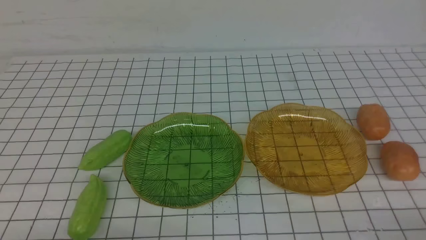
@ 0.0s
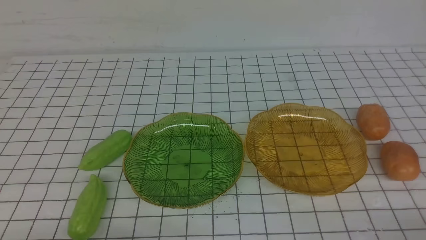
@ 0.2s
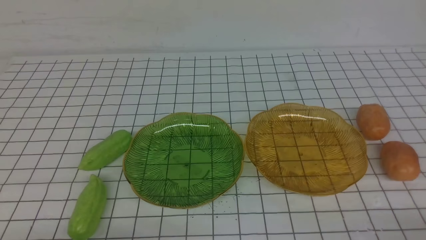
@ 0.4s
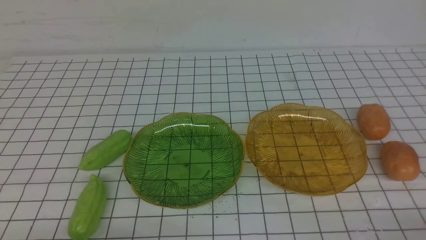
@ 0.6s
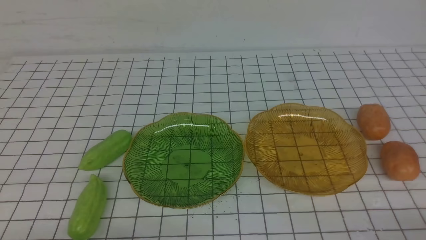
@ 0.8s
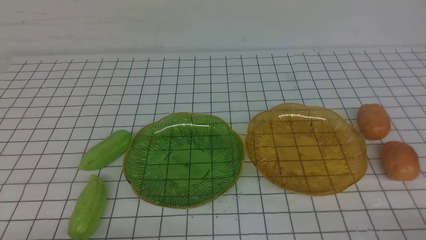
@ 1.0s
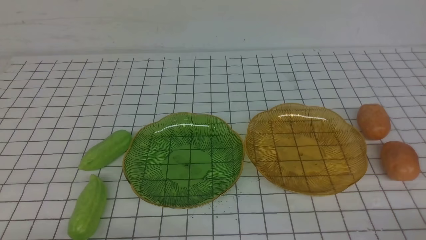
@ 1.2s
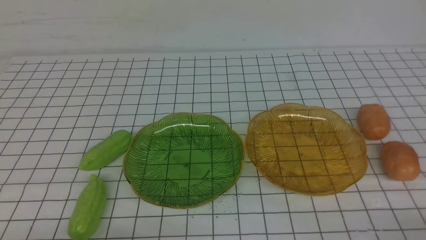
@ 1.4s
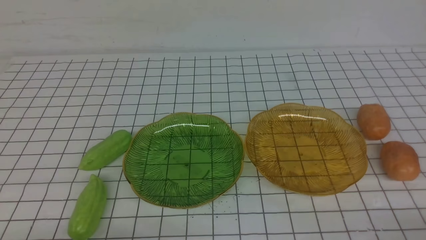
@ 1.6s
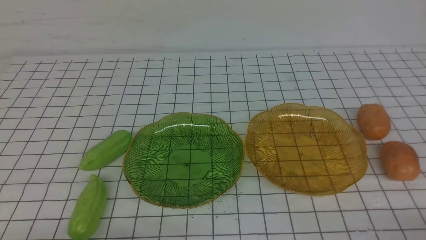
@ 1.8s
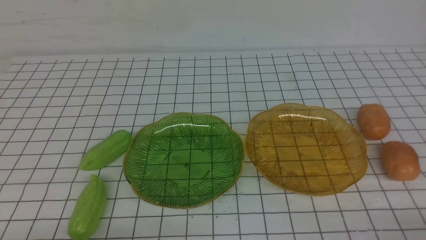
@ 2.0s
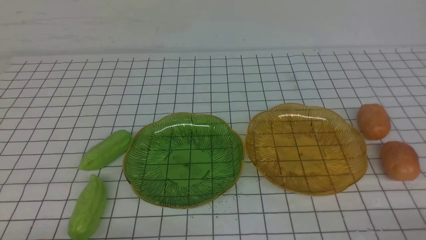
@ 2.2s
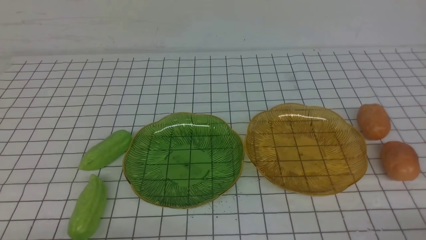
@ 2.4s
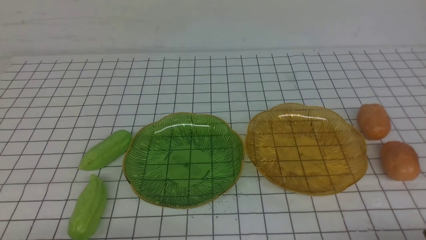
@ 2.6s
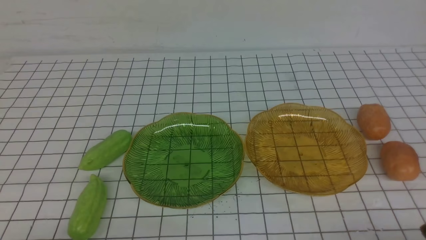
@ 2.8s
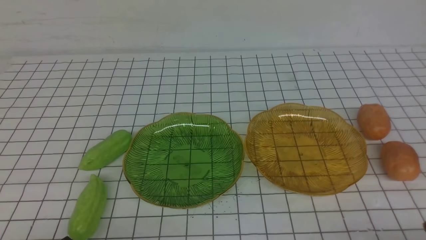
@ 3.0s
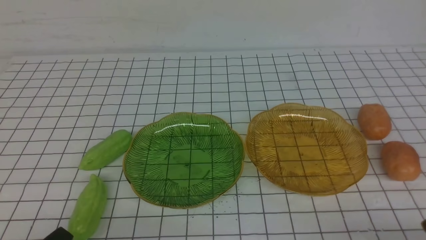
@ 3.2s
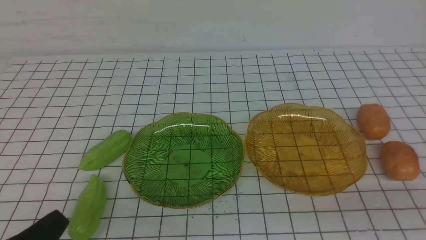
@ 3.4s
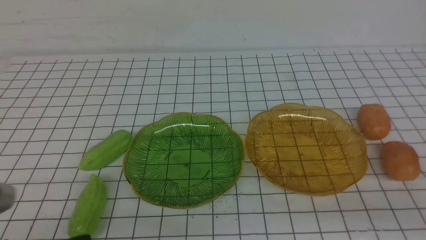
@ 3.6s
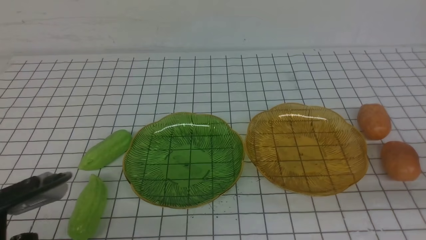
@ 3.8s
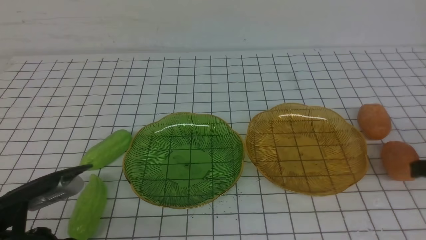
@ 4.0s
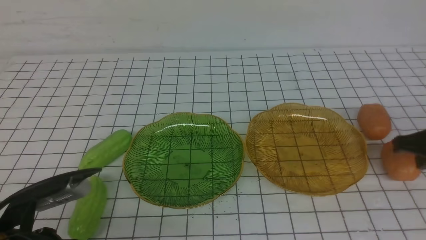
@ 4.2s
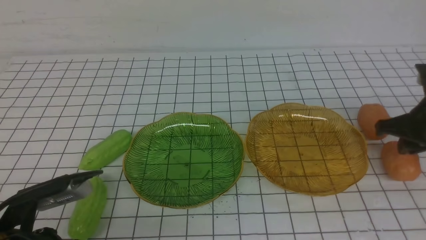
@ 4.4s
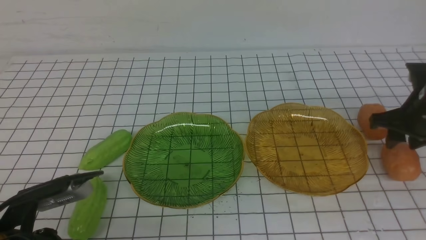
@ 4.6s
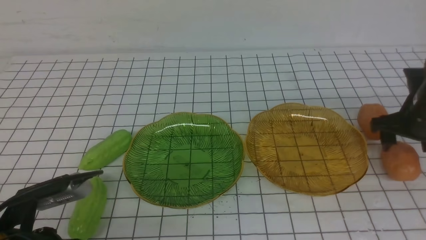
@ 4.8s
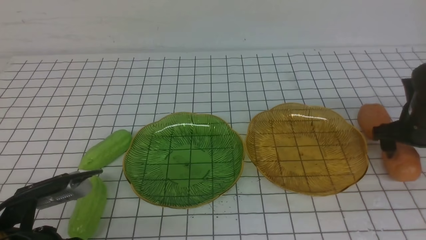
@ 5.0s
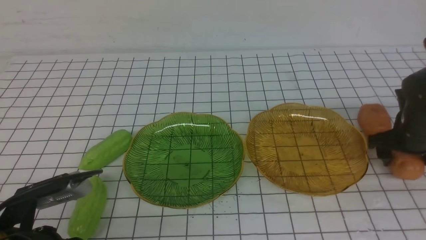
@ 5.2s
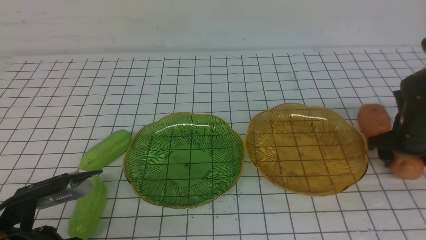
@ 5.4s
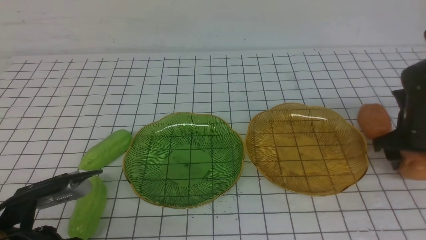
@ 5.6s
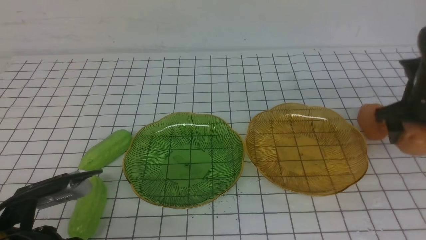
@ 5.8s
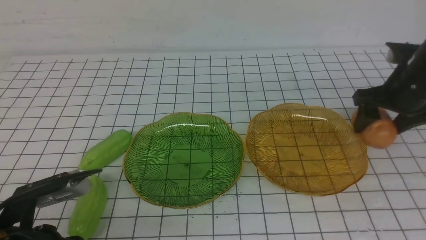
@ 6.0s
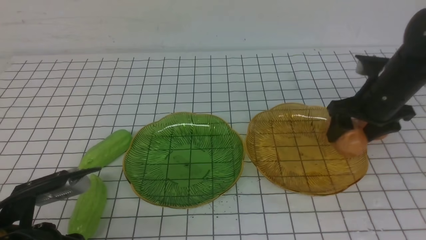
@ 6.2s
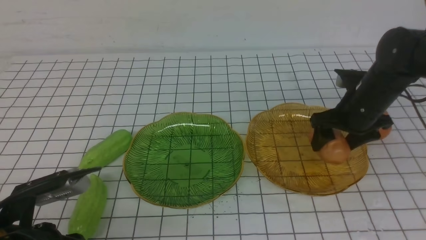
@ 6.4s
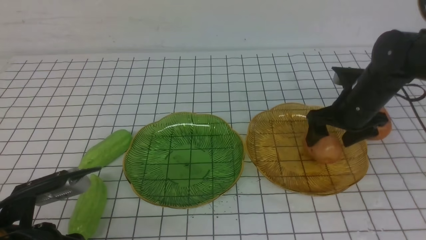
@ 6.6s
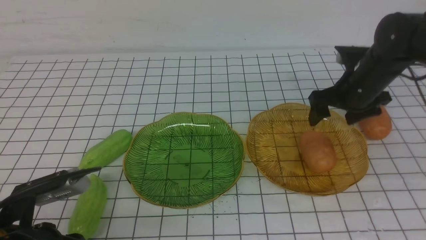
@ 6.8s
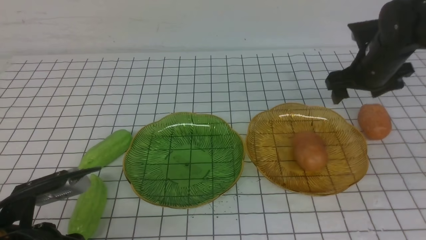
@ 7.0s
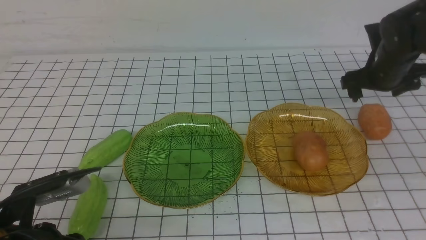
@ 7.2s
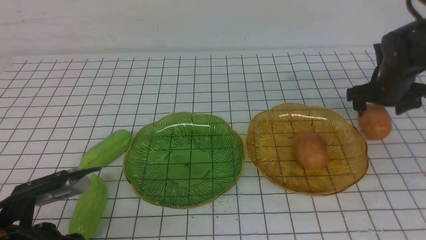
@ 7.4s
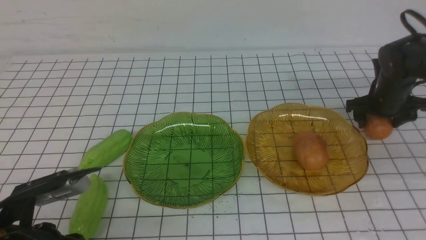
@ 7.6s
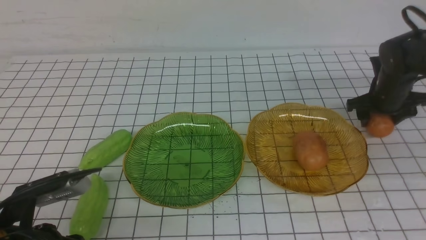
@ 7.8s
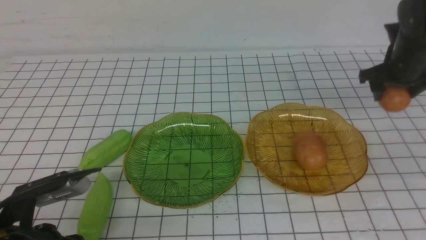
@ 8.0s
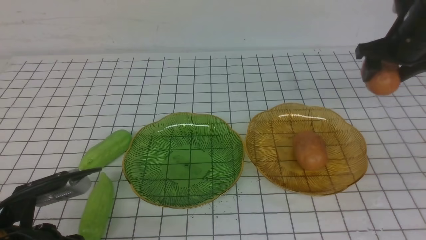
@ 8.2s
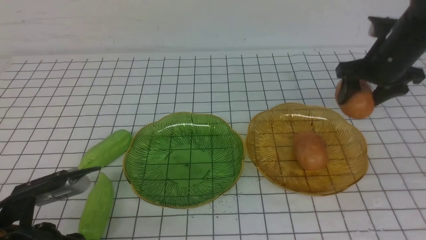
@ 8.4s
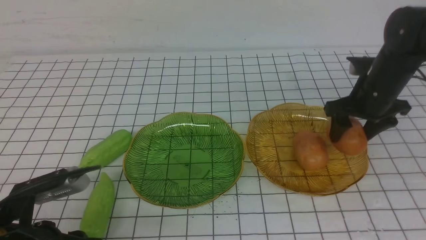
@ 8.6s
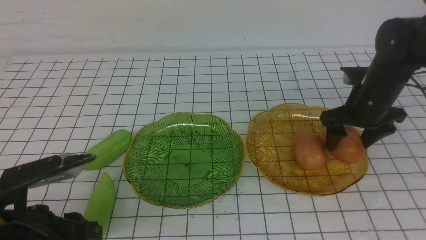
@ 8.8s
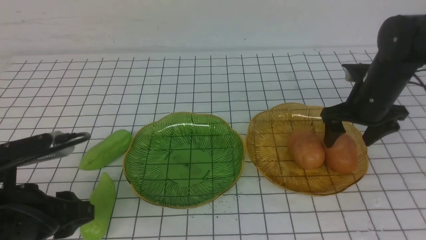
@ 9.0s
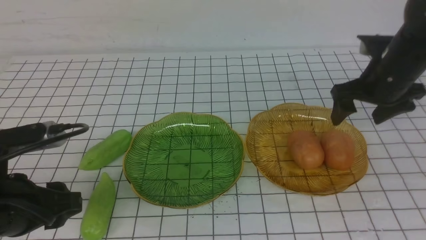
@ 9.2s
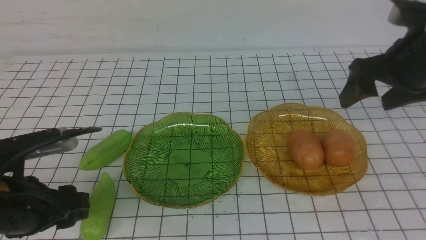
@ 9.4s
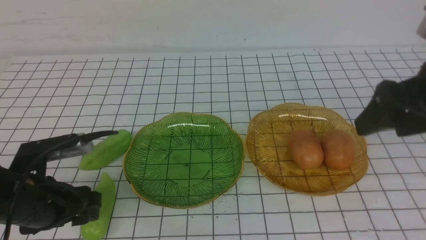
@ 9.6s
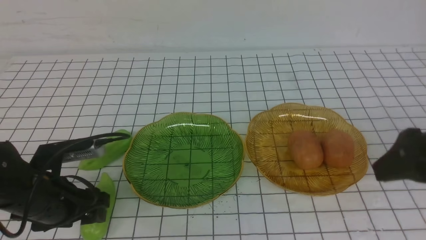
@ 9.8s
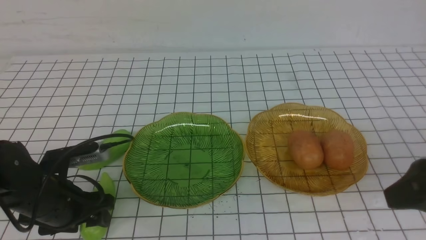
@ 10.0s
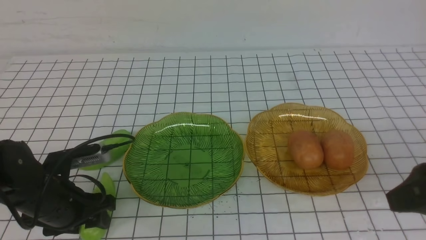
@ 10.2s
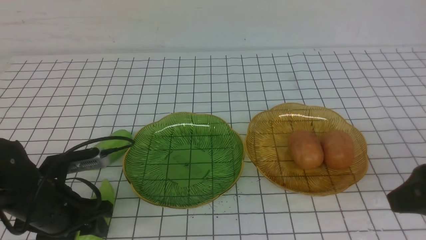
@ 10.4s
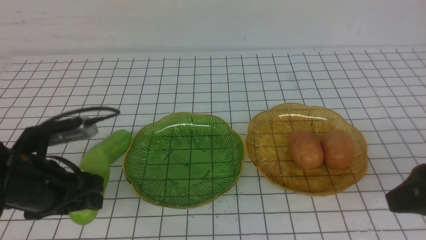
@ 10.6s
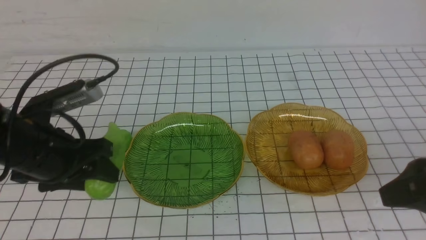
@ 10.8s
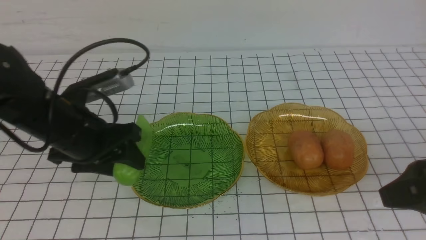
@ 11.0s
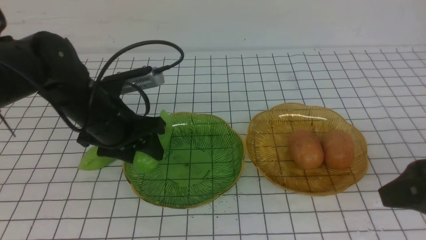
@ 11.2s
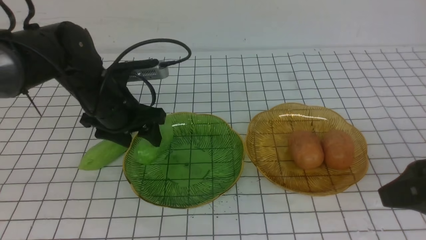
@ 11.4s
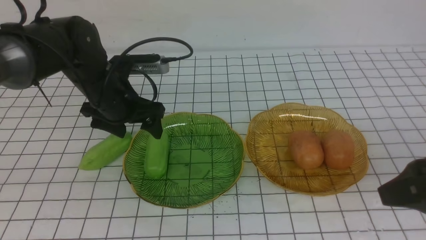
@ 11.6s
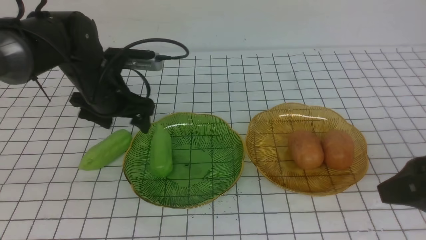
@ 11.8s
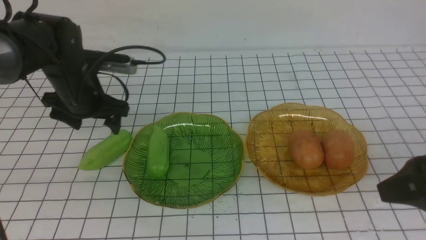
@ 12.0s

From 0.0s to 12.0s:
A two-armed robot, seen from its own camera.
Step, from 0.0s to 9.0s: Grab a potato with your right arm and put it on the right plate.
From 0.0s to 1.6s: Both grippers stay put.
From 3.0s to 4.4s: The right gripper moves forward, approximately 25 cm. The left gripper goes about 10 cm forward.
From 4.4s to 6.0s: The right gripper heads forward, covering approximately 5 cm, reaches about 10 cm downward, then returns, and opens up.
From 6.0s to 7.6s: The right gripper heads forward and downward, covering some 10 cm.
From 7.6s to 9.0s: The right gripper moves backward, upward and to the left, approximately 10 cm.
From 9.0s to 10.4s: The left gripper travels forward by some 5 cm, while the right gripper moves backward, some 20 cm.
From 10.4s to 12.0s: The left gripper moves forward, approximately 15 cm, and opens its fingers.

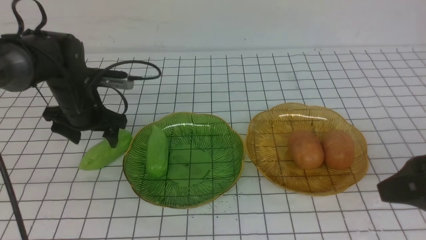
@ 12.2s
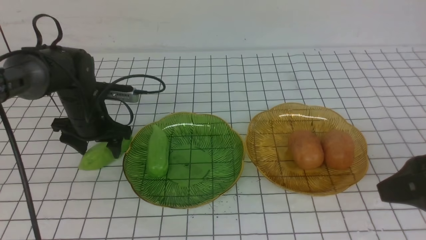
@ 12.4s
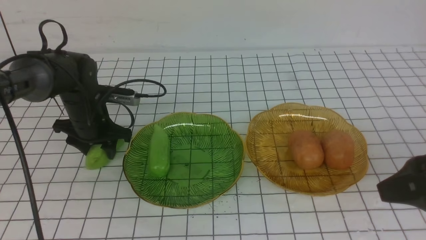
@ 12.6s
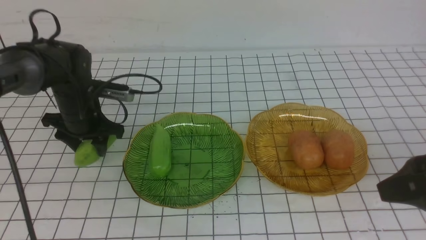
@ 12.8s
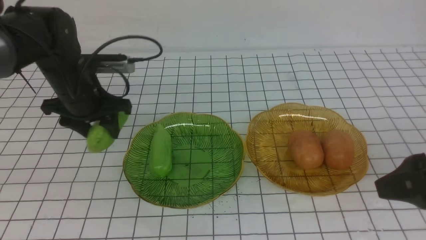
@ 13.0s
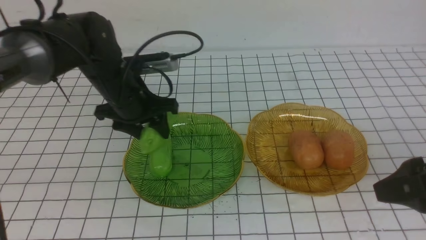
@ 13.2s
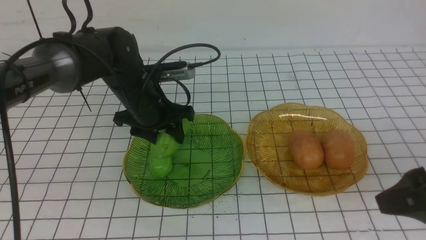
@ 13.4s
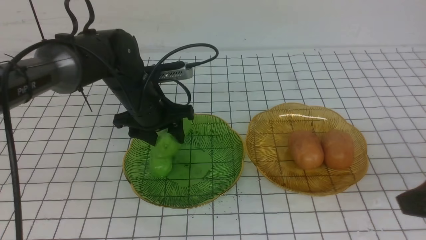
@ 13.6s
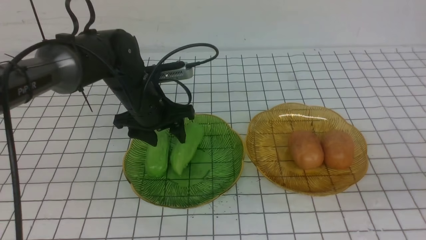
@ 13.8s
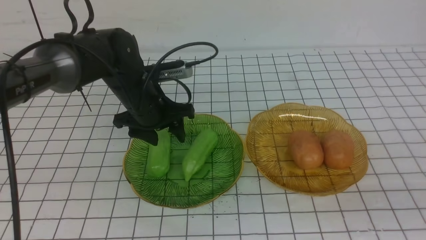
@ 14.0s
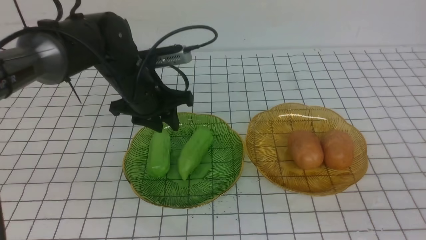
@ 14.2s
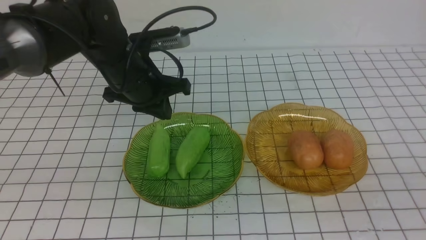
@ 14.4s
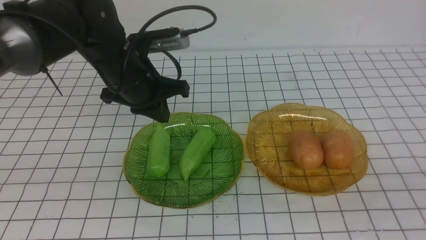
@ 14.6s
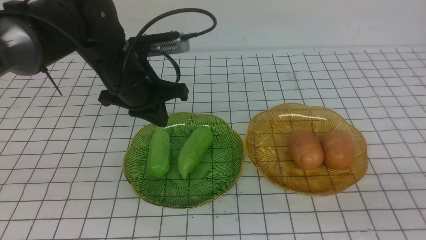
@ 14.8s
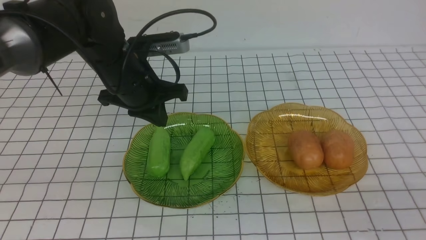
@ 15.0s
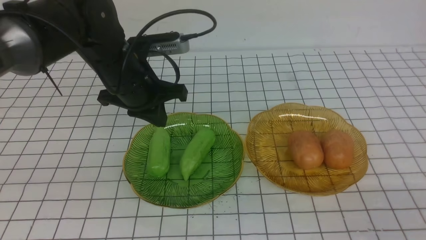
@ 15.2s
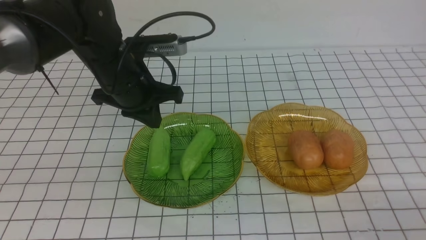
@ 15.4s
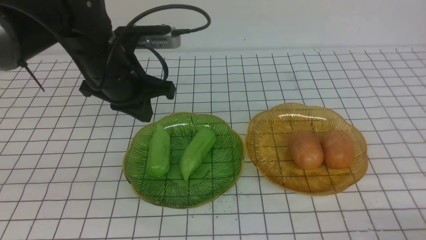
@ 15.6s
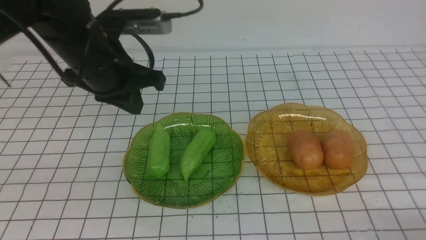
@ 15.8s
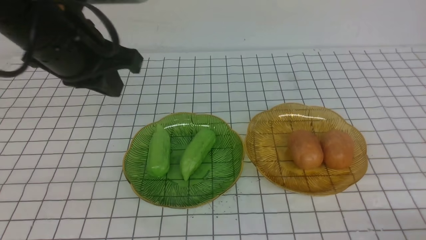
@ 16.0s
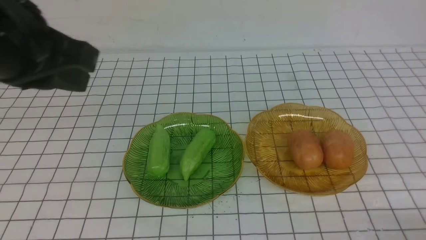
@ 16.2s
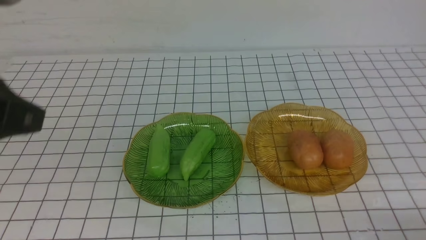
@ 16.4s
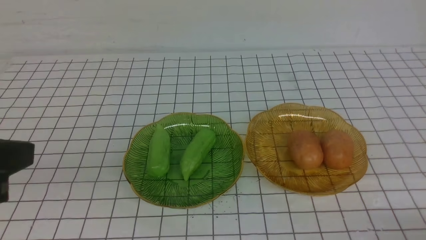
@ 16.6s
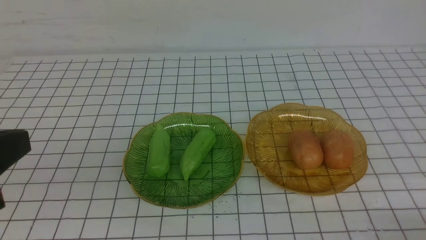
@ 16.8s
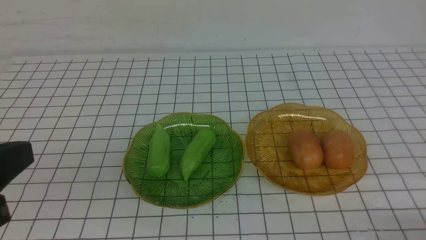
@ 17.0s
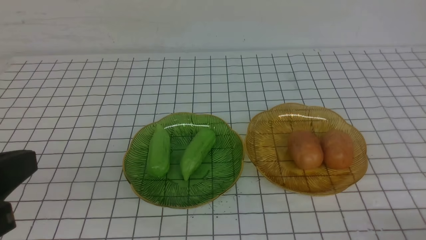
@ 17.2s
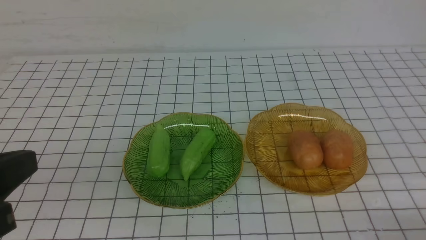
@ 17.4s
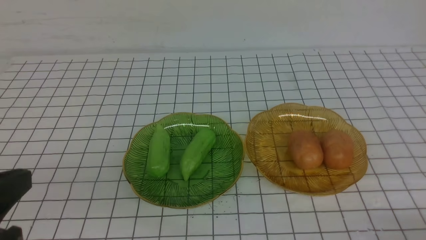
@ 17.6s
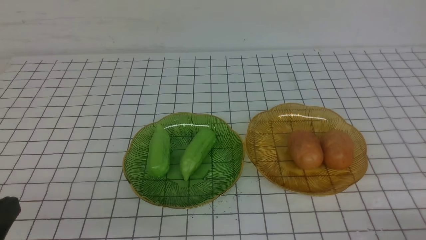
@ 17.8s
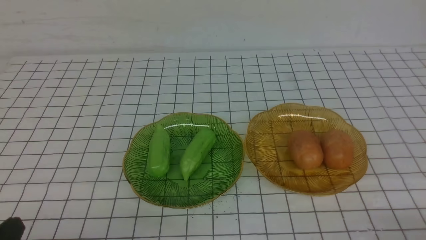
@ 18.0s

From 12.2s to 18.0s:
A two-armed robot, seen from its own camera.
From 12.2s to 13.6s: The left gripper moves to the right, some 10 cm. The right gripper closes up.
From 13.6s to 15.0s: The left gripper is displaced upward by approximately 5 cm, and closes up, while the right gripper shifts some 10 cm downward and backward, and closes up.
From 15.0s to 16.6s: The left gripper is displaced backward and upward by some 30 cm. Meanwhile the right gripper heads downward, covering approximately 5 cm.
From 16.6s to 18.0s: The left gripper heads downward, covering about 20 cm.
